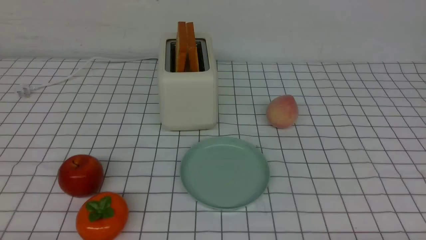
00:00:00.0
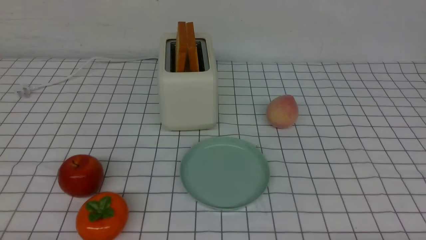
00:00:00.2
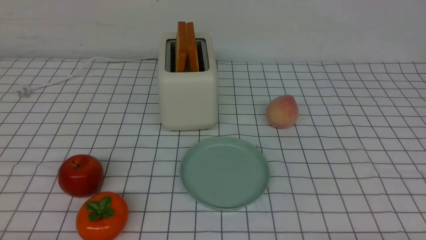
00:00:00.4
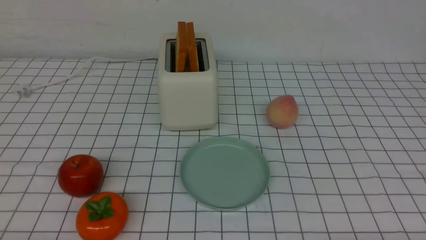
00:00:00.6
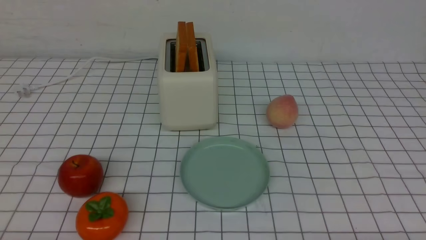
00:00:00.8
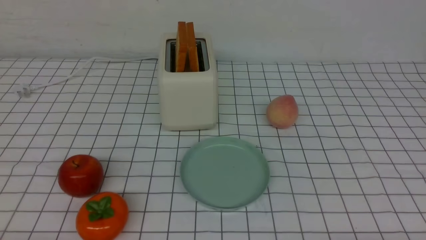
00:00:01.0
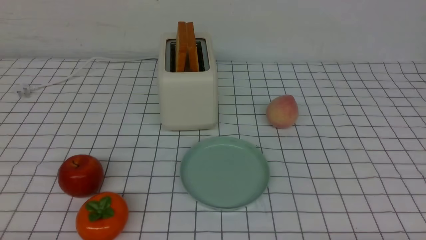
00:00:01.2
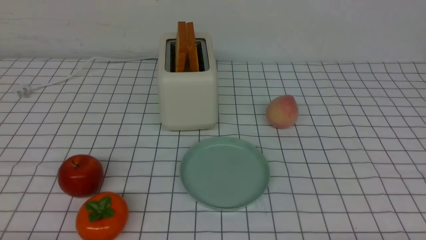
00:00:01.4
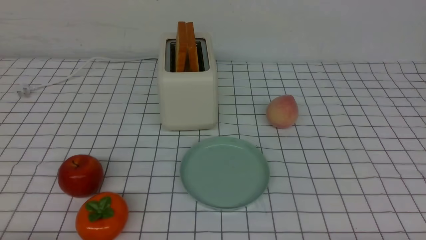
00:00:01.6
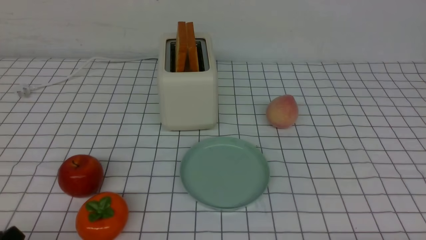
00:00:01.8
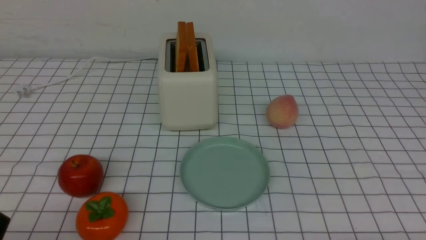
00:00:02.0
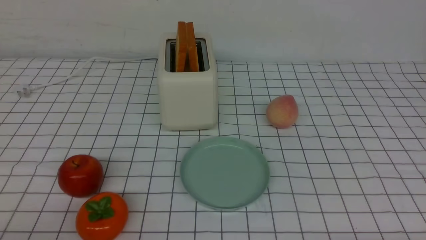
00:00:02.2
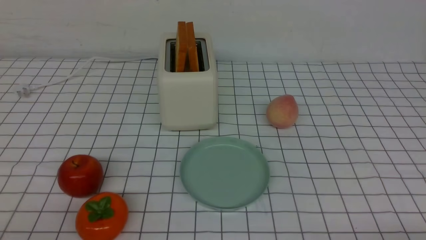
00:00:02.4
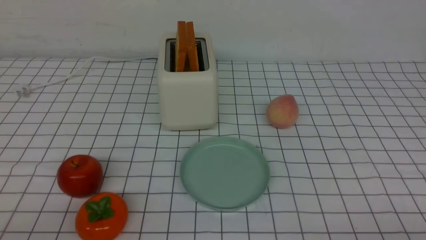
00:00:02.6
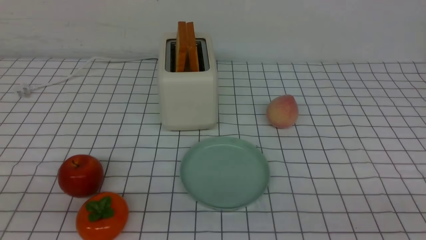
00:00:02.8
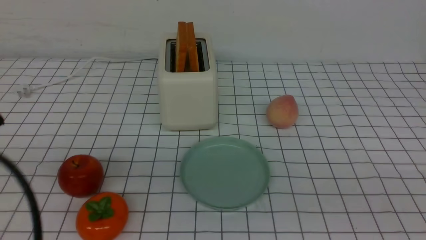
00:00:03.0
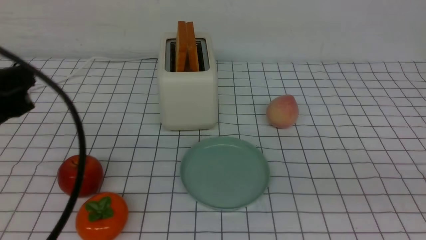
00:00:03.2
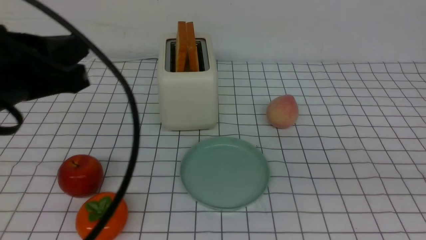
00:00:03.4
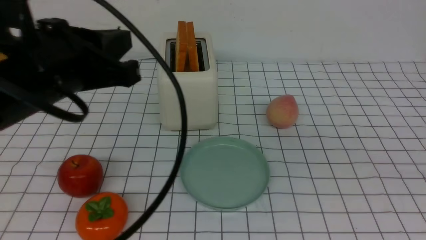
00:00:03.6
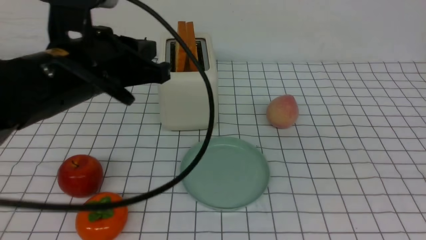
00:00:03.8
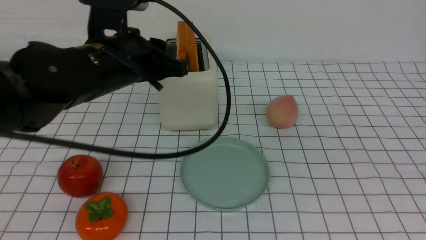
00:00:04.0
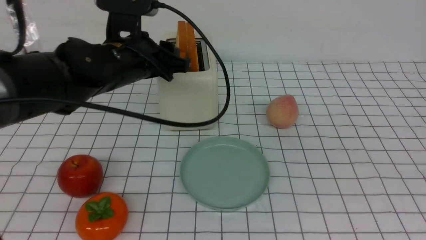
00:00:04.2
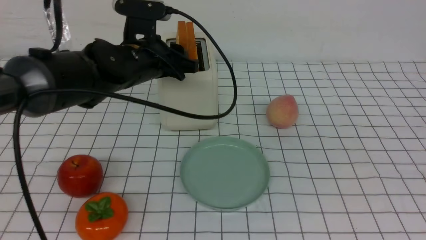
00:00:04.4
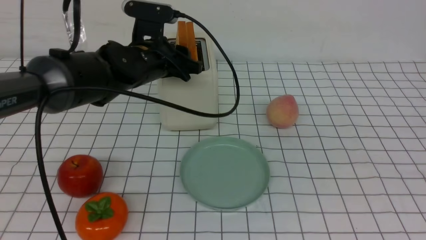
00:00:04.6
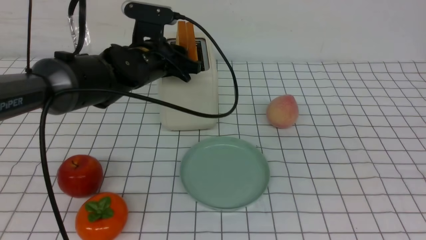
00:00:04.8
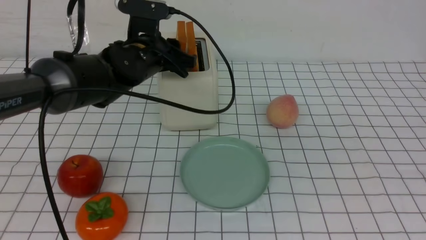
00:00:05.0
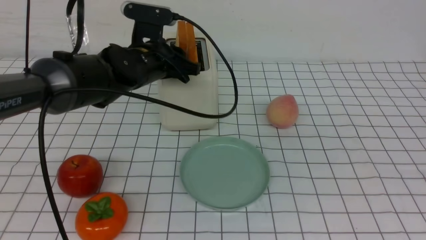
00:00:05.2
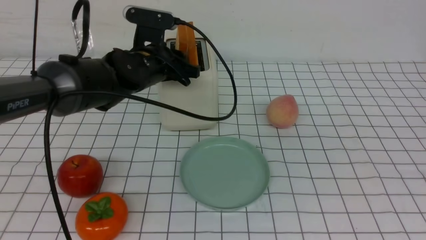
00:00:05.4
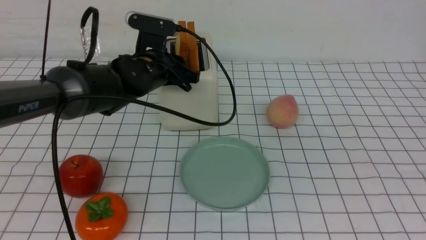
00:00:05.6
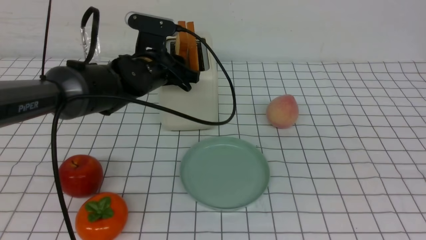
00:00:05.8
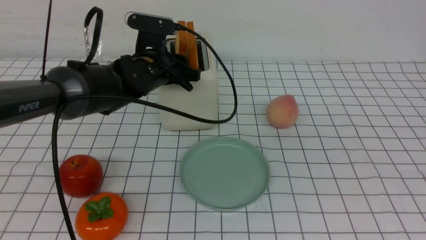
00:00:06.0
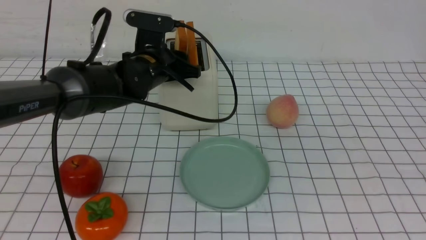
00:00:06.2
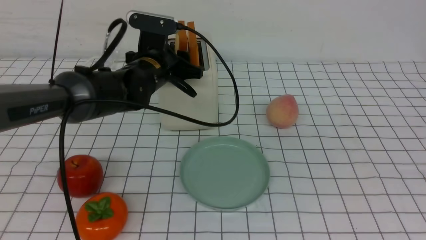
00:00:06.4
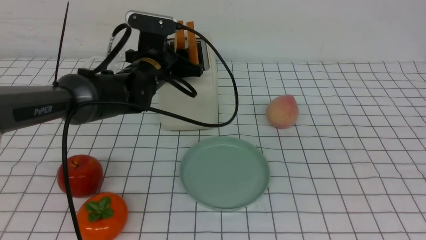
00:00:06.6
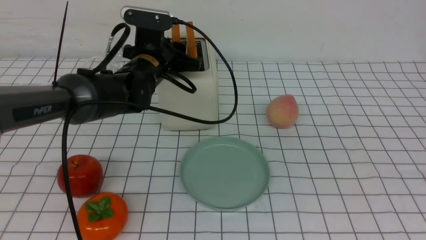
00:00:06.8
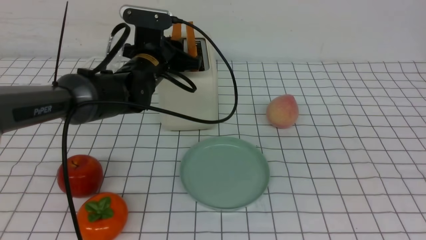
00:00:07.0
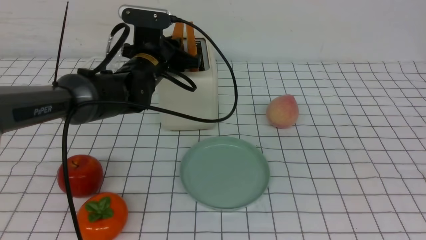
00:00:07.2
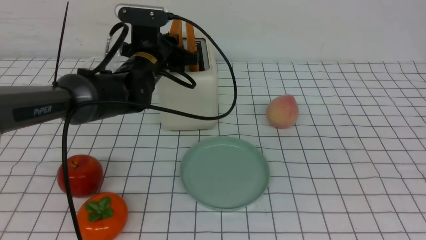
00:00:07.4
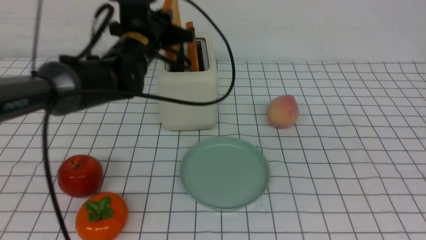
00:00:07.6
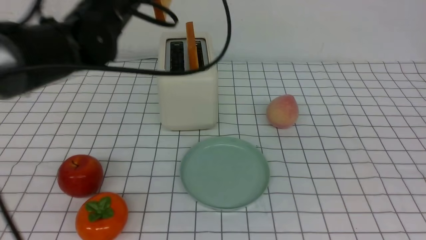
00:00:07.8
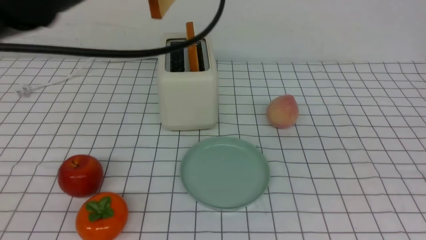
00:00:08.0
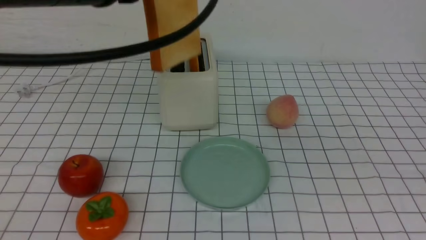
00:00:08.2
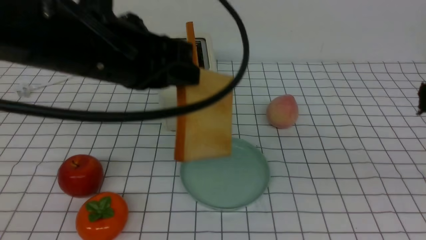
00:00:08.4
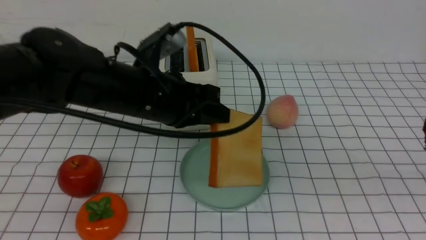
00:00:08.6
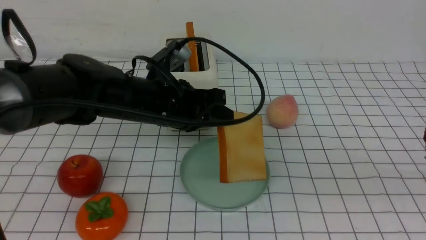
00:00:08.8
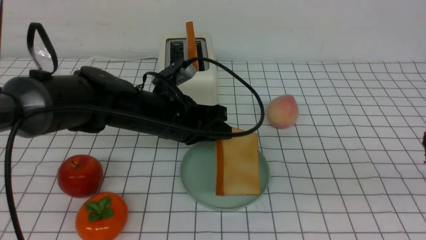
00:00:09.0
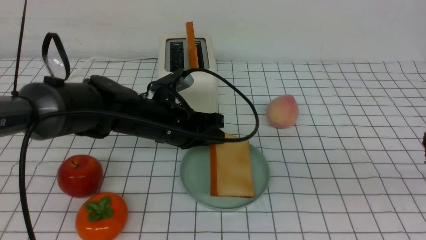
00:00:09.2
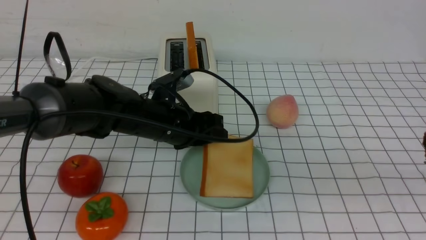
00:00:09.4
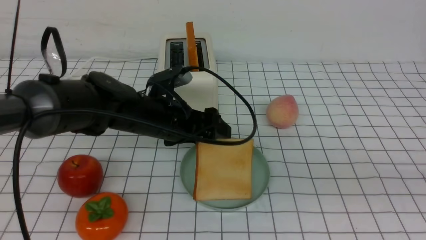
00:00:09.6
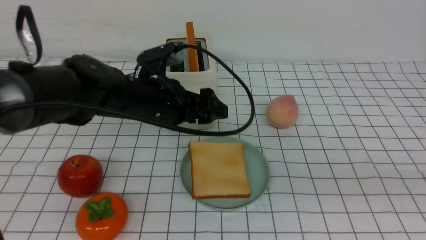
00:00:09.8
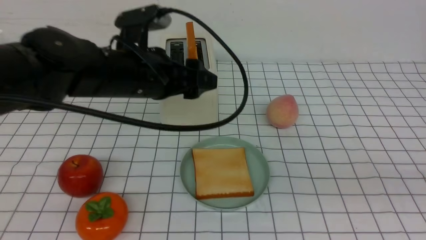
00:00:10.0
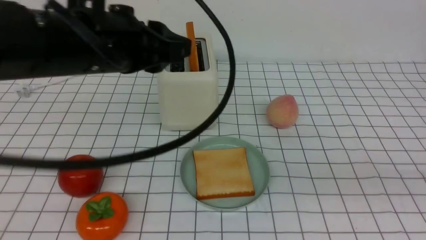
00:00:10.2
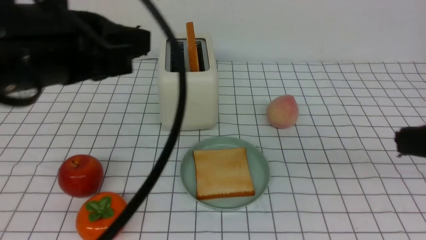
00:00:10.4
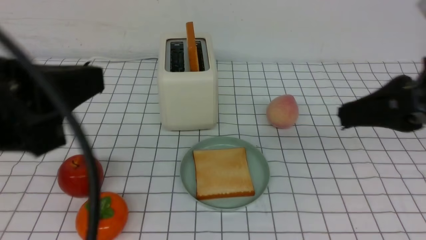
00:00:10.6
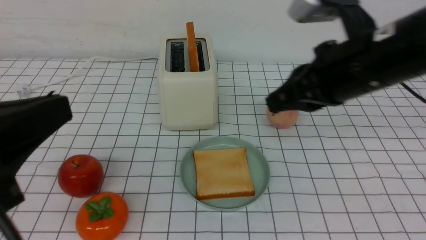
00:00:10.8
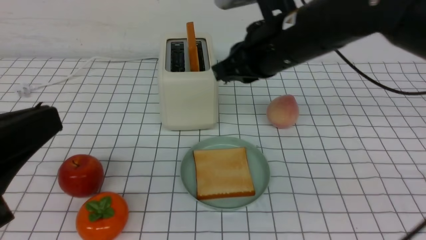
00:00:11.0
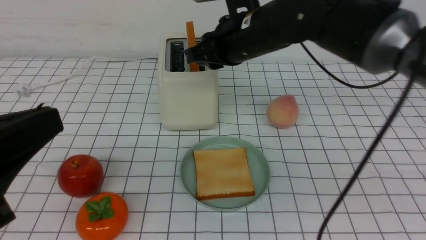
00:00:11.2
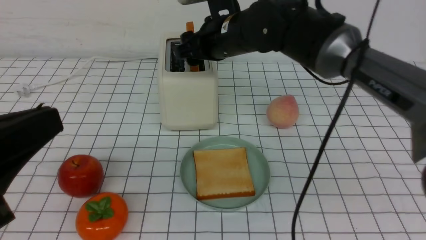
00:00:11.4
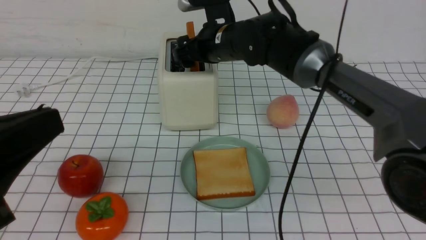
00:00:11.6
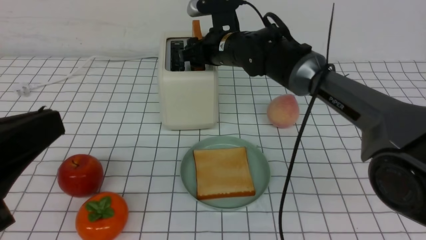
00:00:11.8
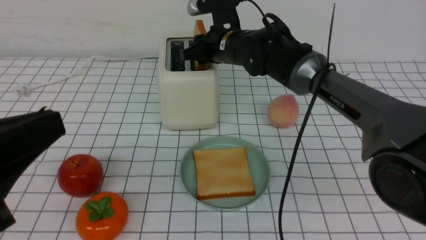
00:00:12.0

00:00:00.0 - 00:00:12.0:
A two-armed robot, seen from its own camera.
Task of the whole recording: take toasted bread from bread machine on white checkered table place on plate.
Step, 00:00:00.0 - 00:00:07.6: use the left arm to take out a slice of bread.
Step, 00:00:07.8 - 00:00:09.8: use the left arm to put a slice of bread into the empty plate.
00:00:01.6 - 00:00:03.0: The left gripper is displaced upward by some 15 cm, and closes up.
00:00:03.0 - 00:00:04.4: The left gripper shifts about 30 cm forward and to the right, and opens. Meanwhile the right gripper moves upward, approximately 10 cm.
00:00:04.4 - 00:00:06.0: The grippers make only small movements.
00:00:06.0 - 00:00:07.6: The left gripper travels upward by some 5 cm, and closes up.
00:00:07.6 - 00:00:09.0: The left gripper shifts some 10 cm downward and backward.
00:00:09.0 - 00:00:10.4: The right gripper travels forward by some 5 cm. The left gripper moves upward, backward and to the left, some 25 cm, and opens and closes again.
00:00:10.4 - 00:00:12.0: The left gripper goes some 10 cm backward, while the right gripper travels forward and to the left by roughly 40 cm, and opens up.

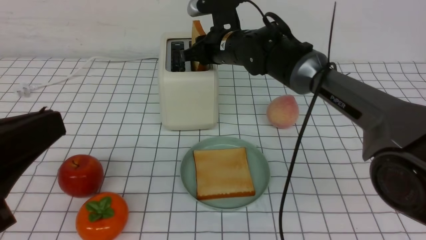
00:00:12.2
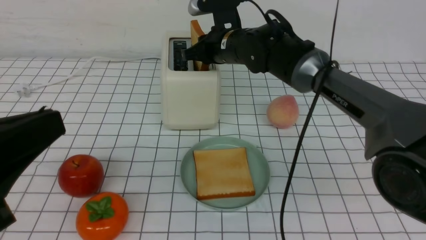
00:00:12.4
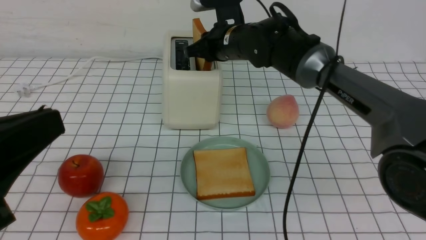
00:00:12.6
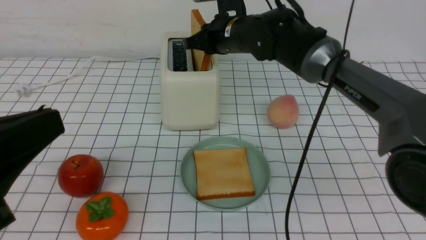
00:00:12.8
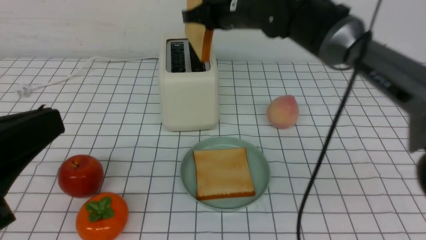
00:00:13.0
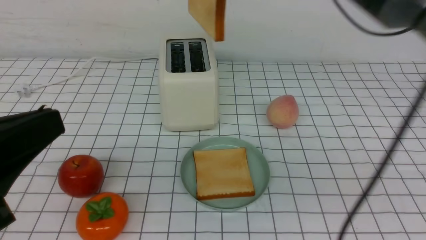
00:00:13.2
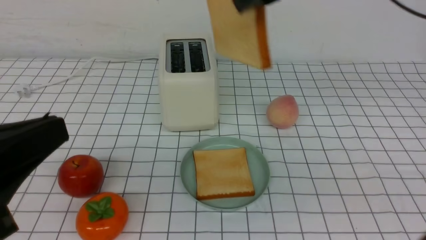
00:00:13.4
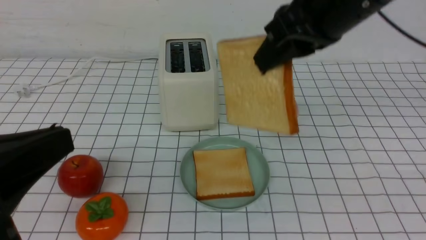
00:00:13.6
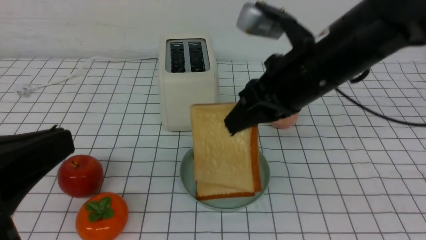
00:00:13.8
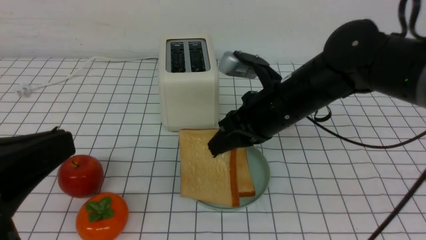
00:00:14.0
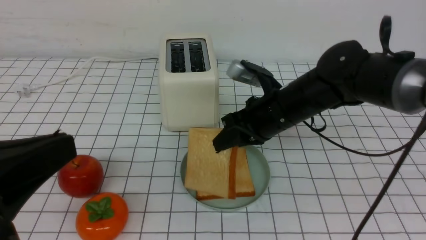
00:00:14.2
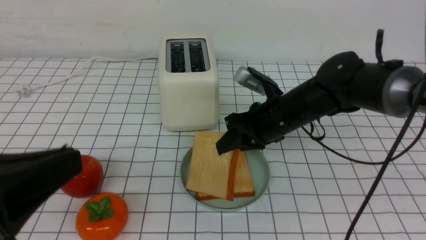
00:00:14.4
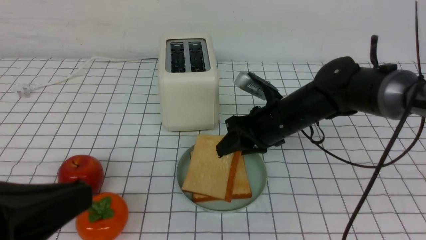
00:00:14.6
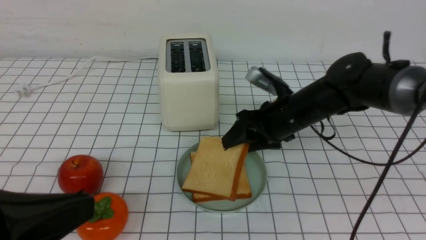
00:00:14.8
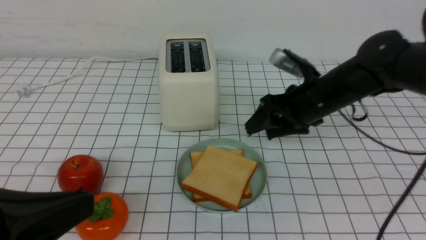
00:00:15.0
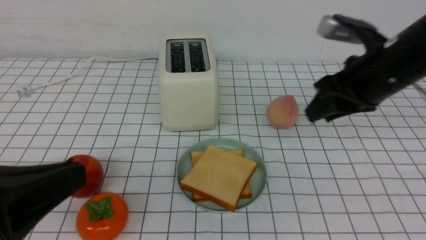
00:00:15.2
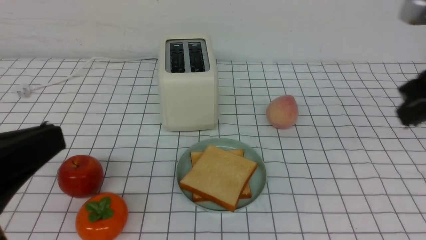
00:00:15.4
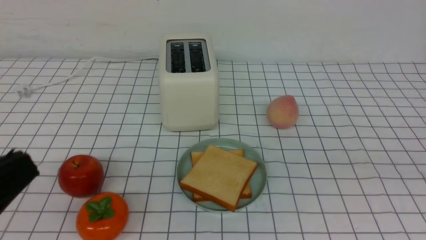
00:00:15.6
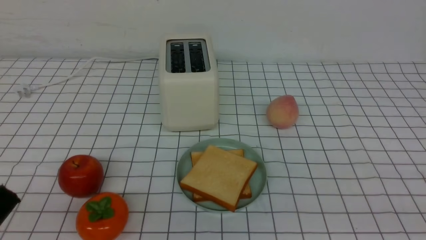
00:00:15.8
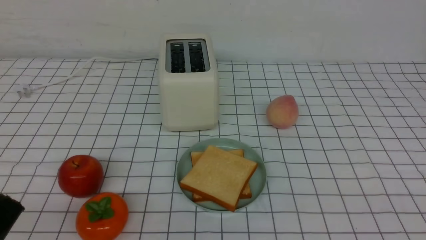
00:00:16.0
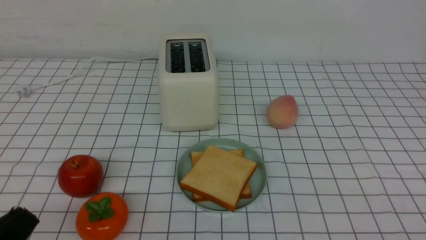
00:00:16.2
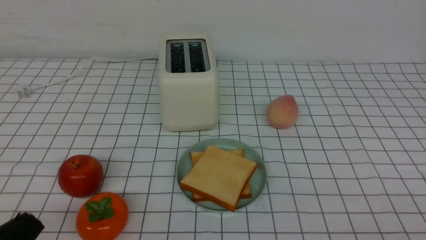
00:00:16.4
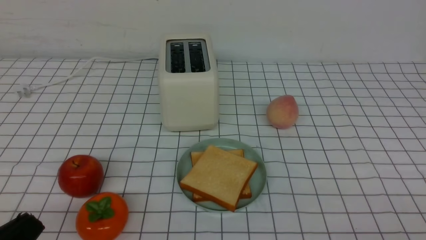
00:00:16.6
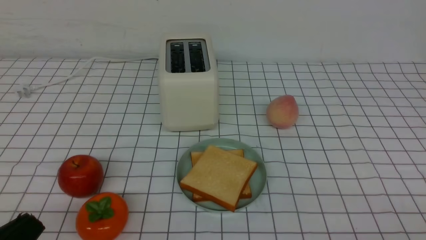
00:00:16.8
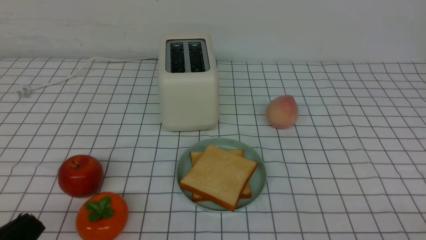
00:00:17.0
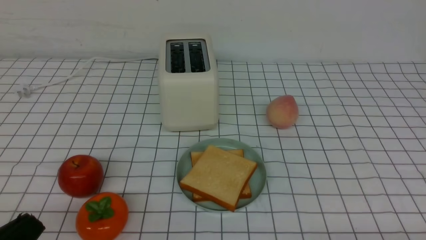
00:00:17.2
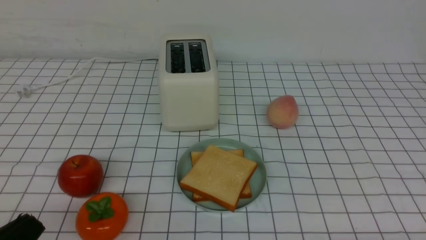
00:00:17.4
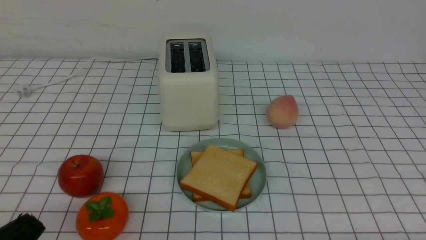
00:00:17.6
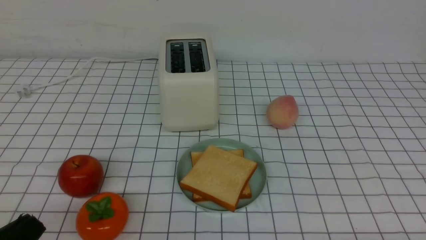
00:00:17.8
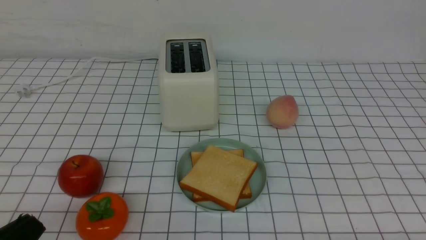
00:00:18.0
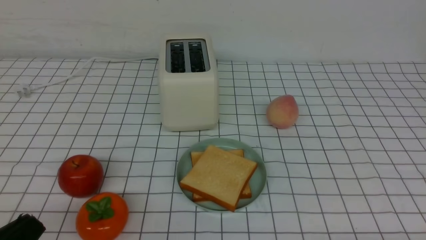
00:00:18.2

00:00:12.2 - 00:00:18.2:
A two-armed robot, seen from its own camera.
Task of the whole recording: take toasted bread from bread machine on white checkered table place on plate.
Step, 00:00:13.0 - 00:00:14.8: use the right arm to put a slice of bread into the plate.
00:00:12.2 - 00:00:13.8: The right gripper is displaced backward by roughly 20 cm.
00:00:13.8 - 00:00:15.2: The right gripper is displaced to the right by some 10 cm, and reaches roughly 15 cm downward, then returns.
00:00:15.2 - 00:00:16.6: The left gripper moves downward, about 10 cm. Meanwhile the right gripper is displaced backward by approximately 25 cm, and closes.
